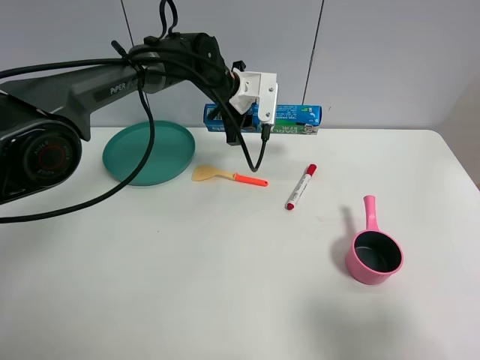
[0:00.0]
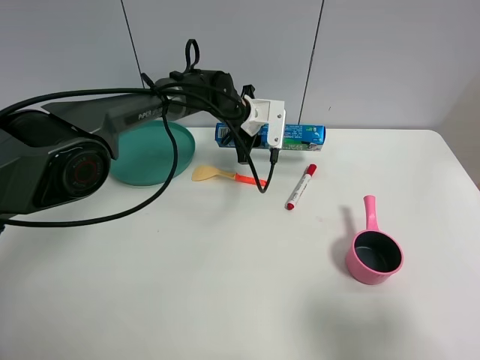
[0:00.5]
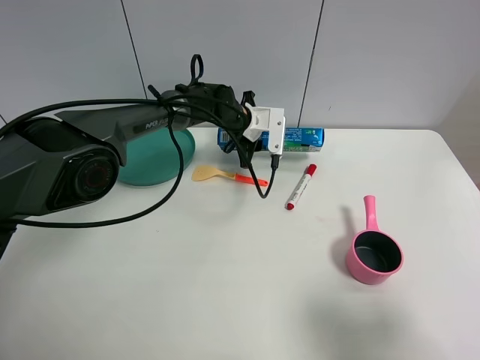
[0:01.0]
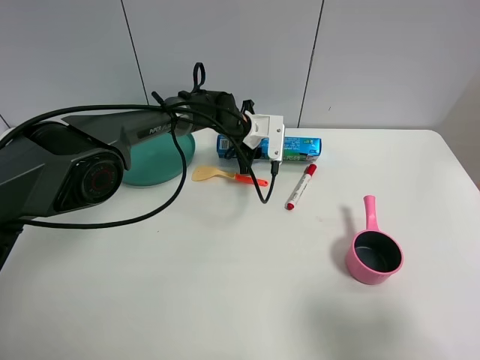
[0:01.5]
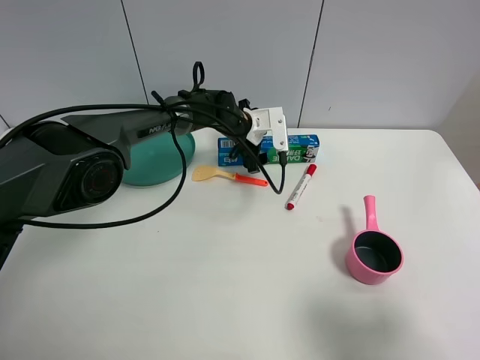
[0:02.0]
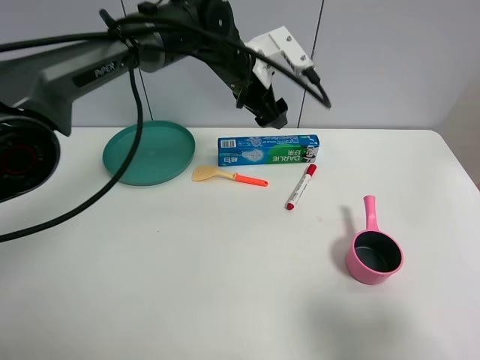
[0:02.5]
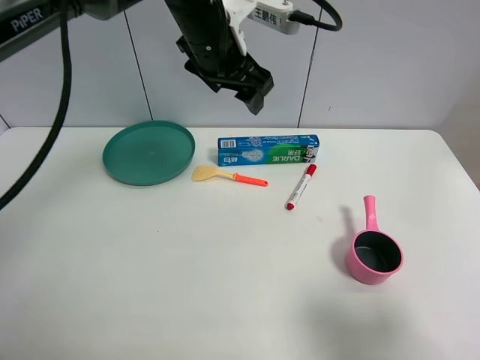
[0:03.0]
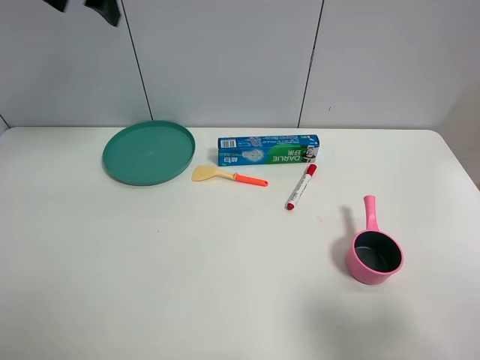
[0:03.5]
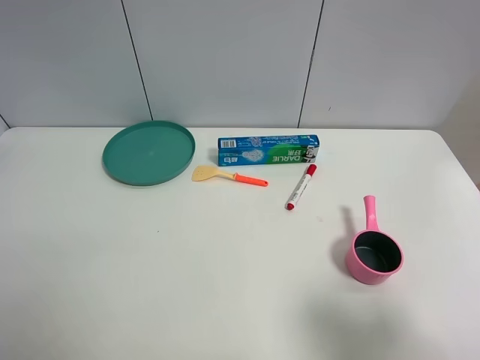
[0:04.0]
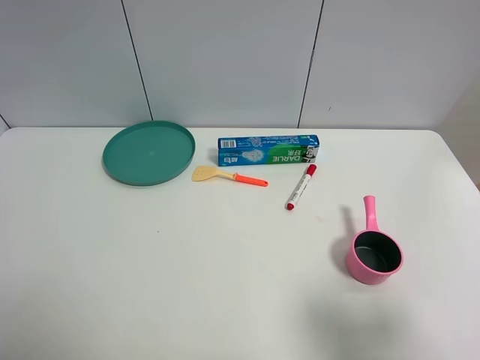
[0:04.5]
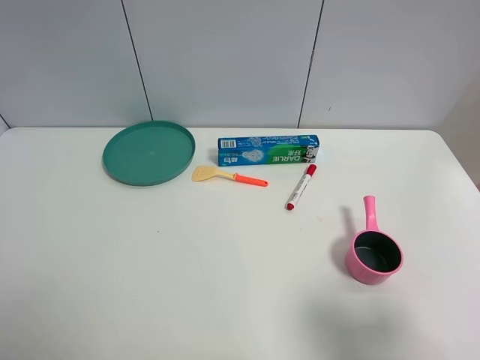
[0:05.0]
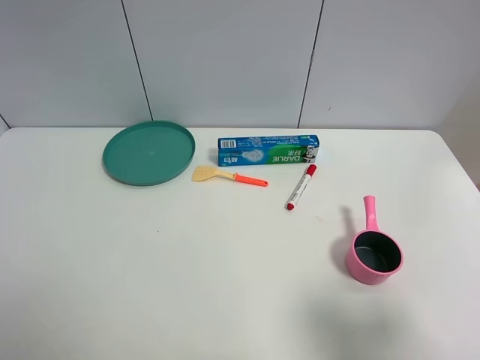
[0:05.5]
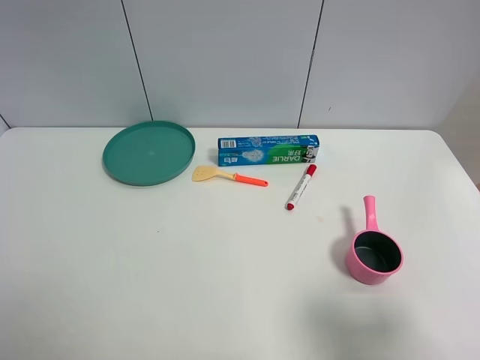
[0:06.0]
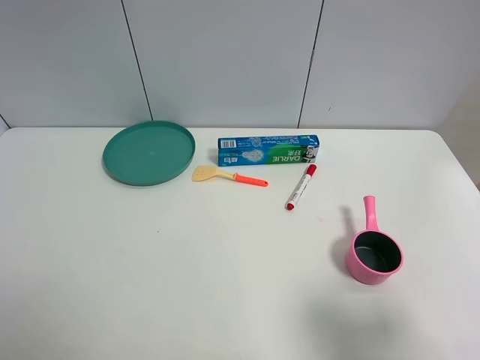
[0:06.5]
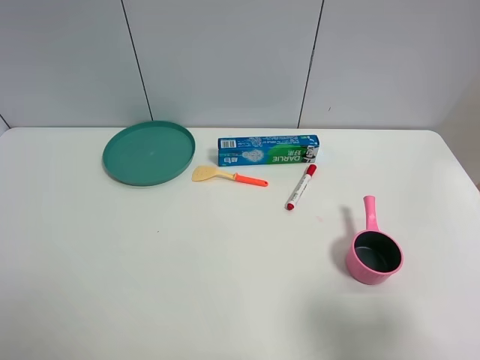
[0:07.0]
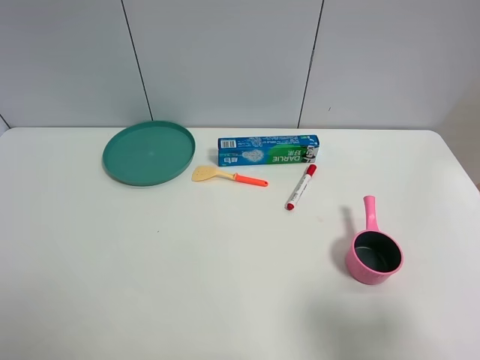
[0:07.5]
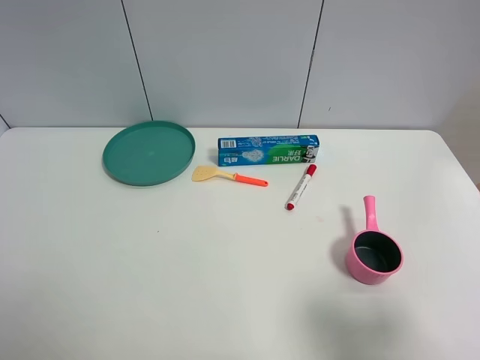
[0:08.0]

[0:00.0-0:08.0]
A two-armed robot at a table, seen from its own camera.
Task of the whole recording: the gripper move the object.
0:00.0 to 0:02.0: The left gripper shifts about 10 cm downward, and opens.
0:02.0 to 0:04.0: The left gripper heads to the left, upward and backward, covering roughly 50 cm.

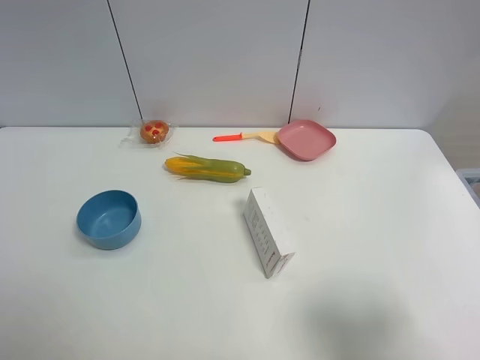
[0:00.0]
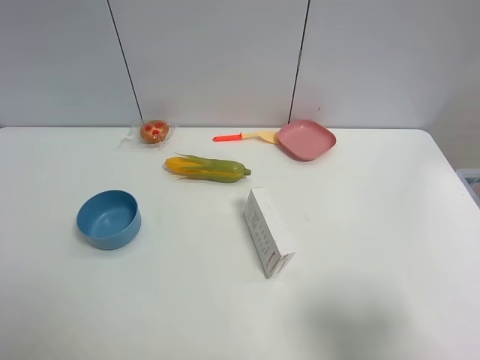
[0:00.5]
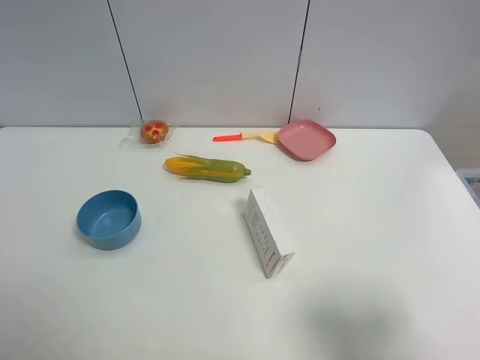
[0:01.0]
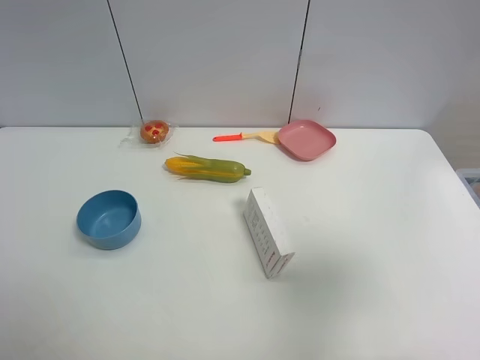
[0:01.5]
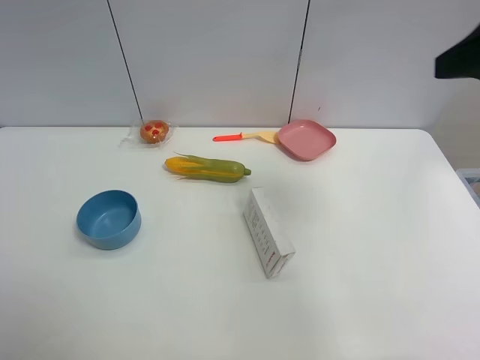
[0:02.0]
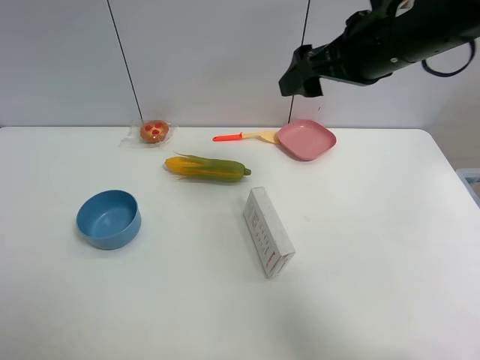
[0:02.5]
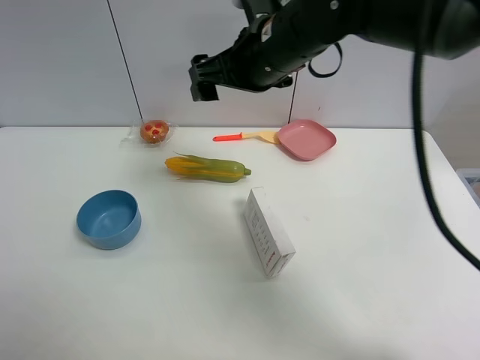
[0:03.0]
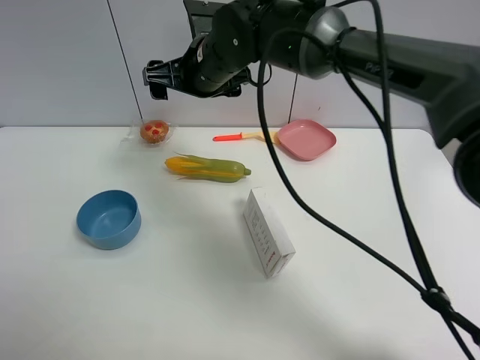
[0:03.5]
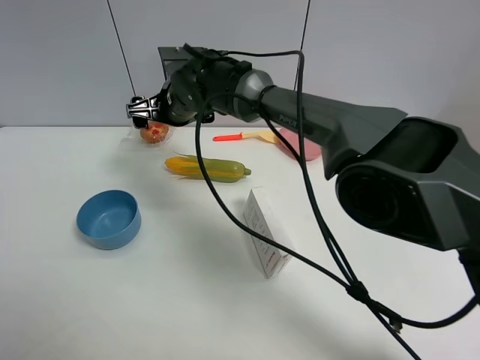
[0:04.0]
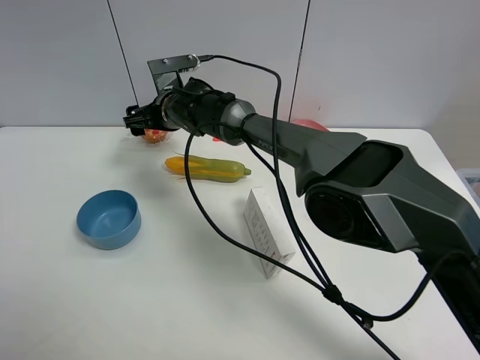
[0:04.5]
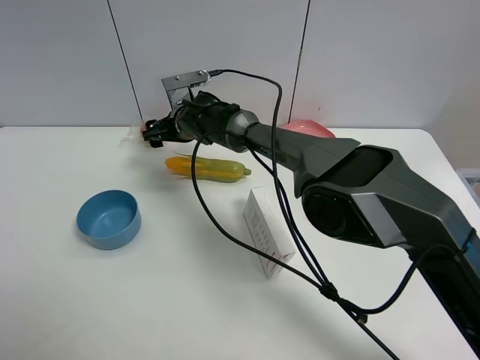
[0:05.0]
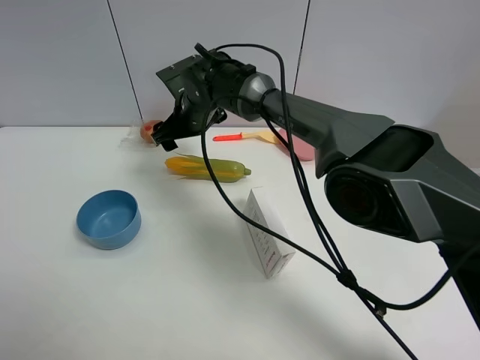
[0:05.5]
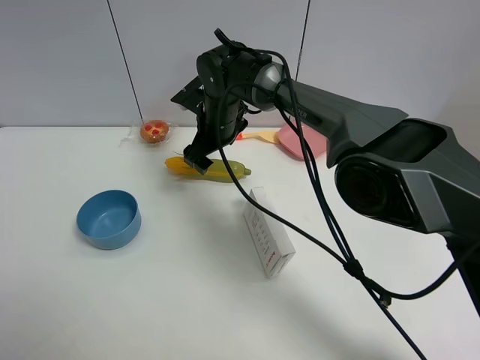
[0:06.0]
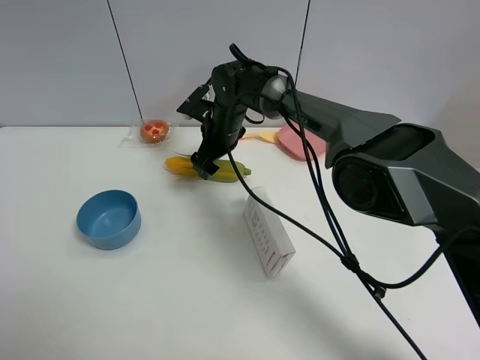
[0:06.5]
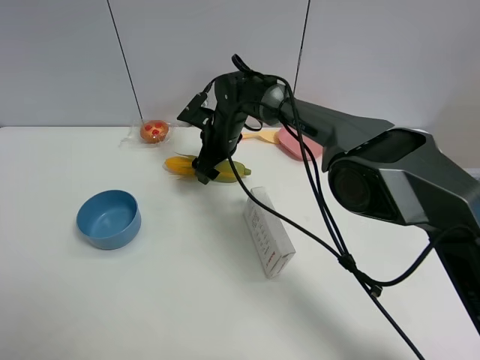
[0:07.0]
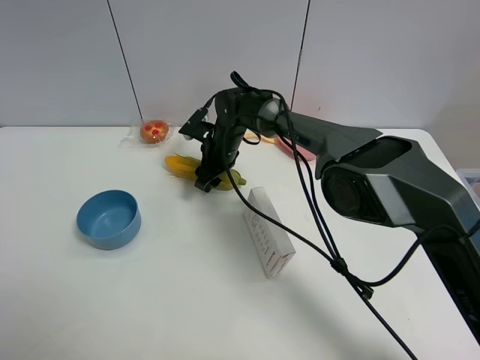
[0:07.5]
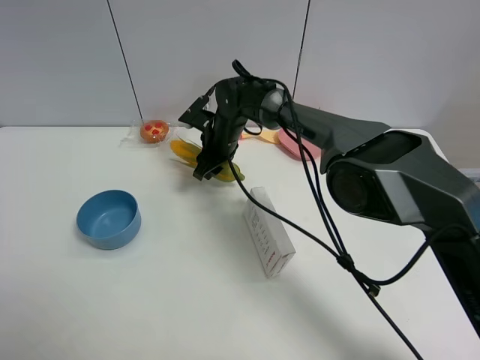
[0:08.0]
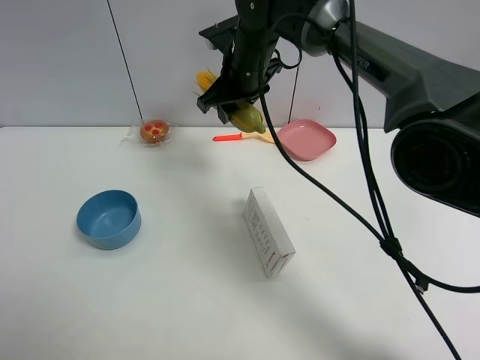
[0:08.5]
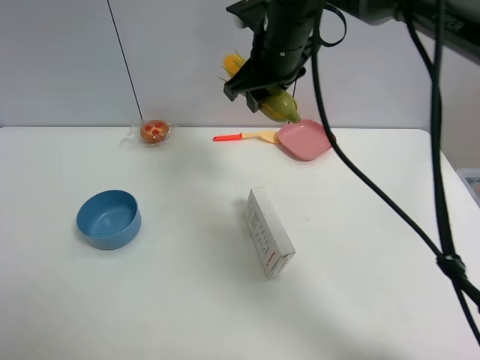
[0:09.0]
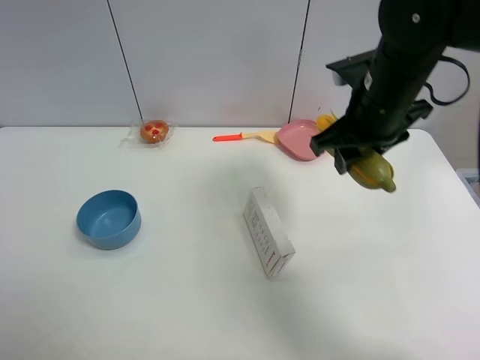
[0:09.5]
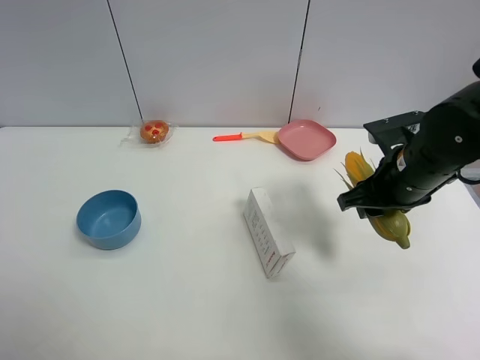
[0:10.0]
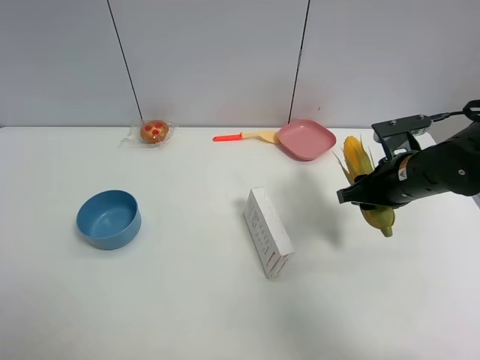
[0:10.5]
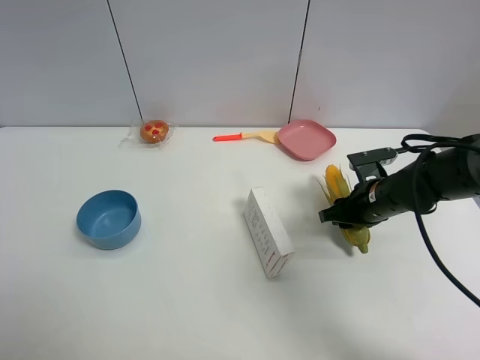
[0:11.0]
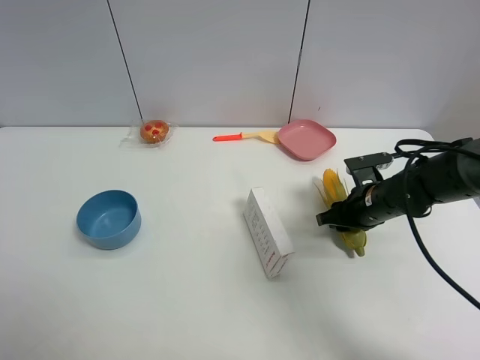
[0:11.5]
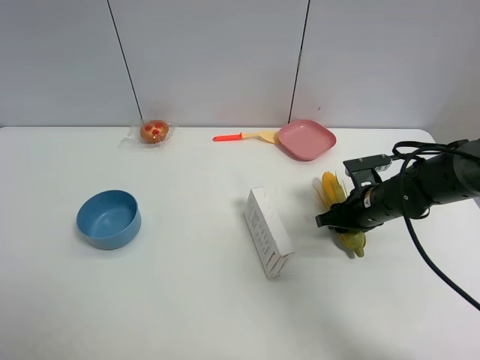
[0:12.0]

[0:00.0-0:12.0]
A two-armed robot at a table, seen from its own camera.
Task of the whole recording: the gripper move the object.
Step, 0:00.0 to 0:07.5: Grasp the corn with the right gripper.
0:00.0 to 0:02.0: The right gripper shifts about 25 cm forward and upward.
0:02.0 to 0:04.0: The right gripper heads to the left, downward and forward, covering about 50 cm.
0:04.0 to 0:06.0: The right gripper heads to the right, covering approximately 5 cm.
0:06.0 to 0:08.0: The right gripper moves about 5 cm, and closes.
0:08.0 to 0:10.0: The right gripper heads to the right and backward, covering approximately 30 cm.
0:10.0 to 0:12.0: The right gripper shifts roughly 10 cm downward.

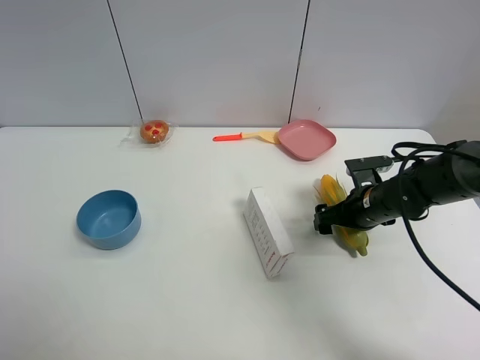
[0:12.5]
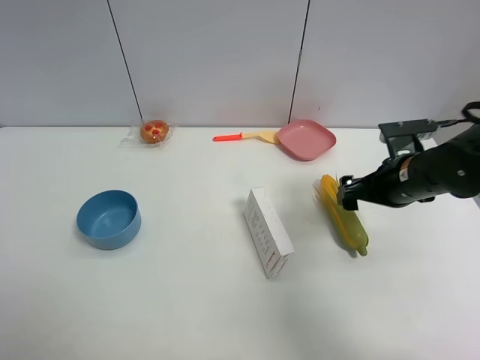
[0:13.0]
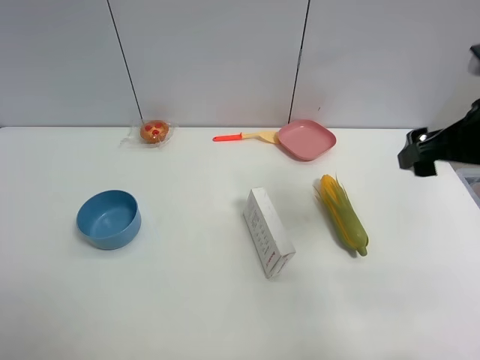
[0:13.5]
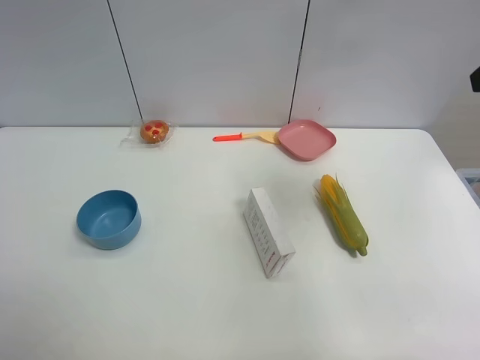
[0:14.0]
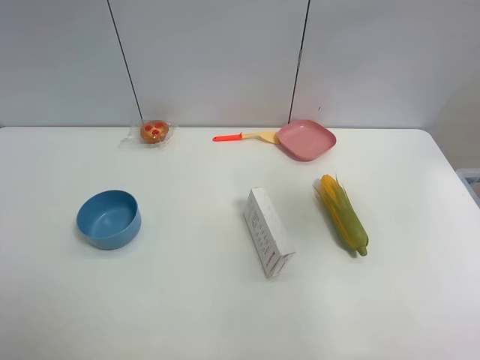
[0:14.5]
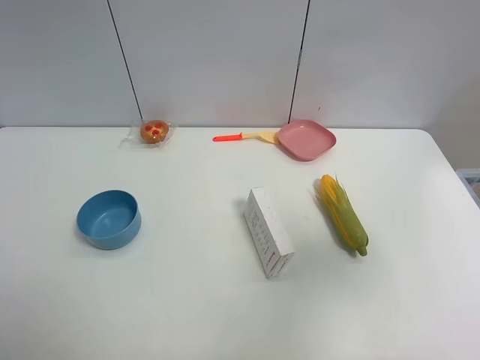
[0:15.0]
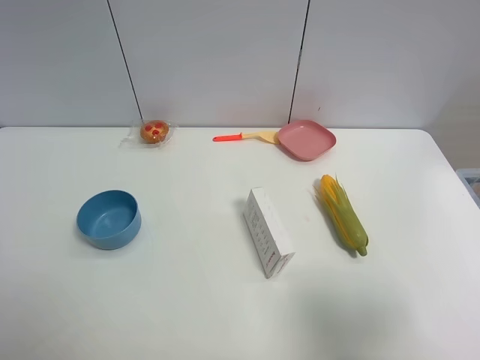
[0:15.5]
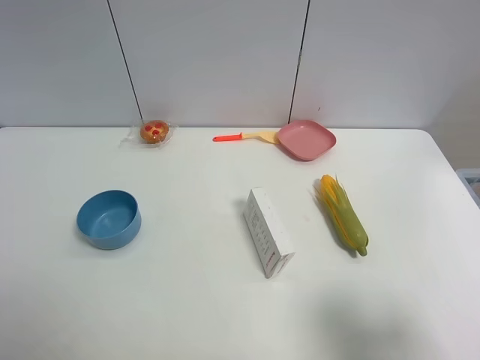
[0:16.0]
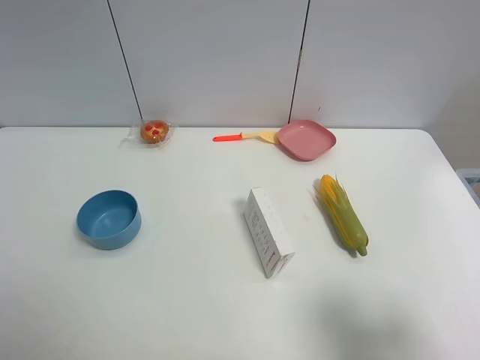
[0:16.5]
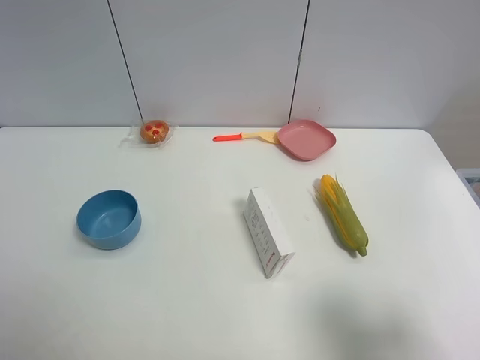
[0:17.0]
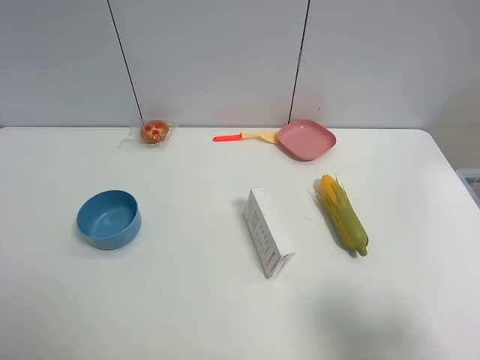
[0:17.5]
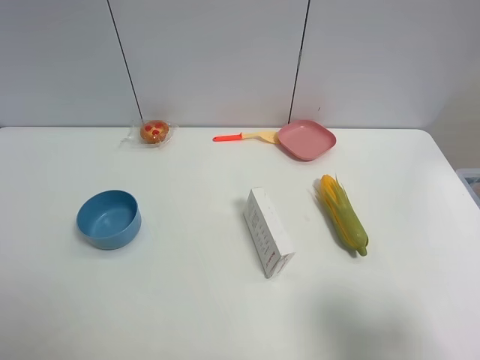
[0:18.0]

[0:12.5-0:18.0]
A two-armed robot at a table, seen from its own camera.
Task of the whole recording: the gripper move the object.
0:12.5 to 0:14.5: The right gripper moves upward, approximately 35 cm.
0:14.5 to 0:16.0: The right gripper heads backward and downward, covering some 20 cm.
0:16.0 to 0:18.0: Both grippers stay put.
